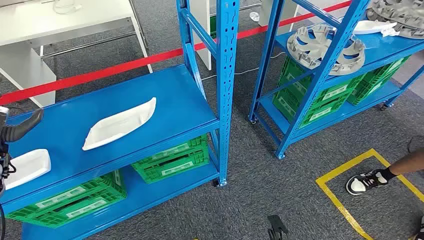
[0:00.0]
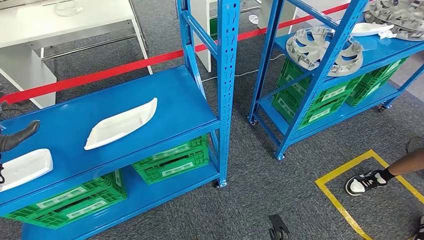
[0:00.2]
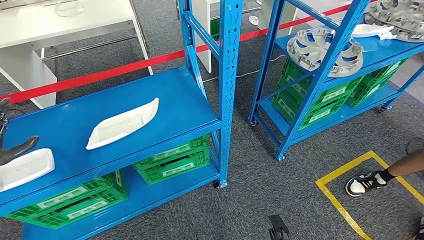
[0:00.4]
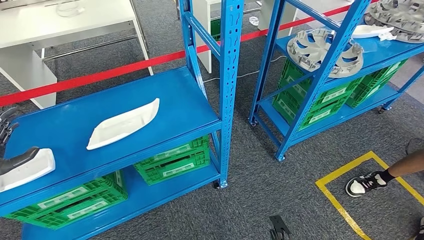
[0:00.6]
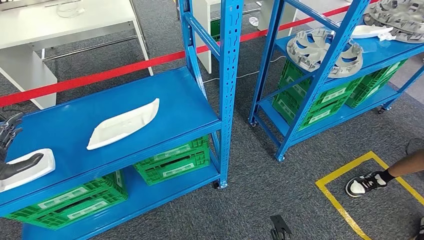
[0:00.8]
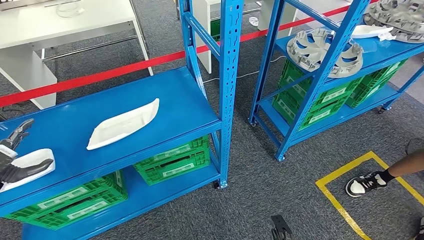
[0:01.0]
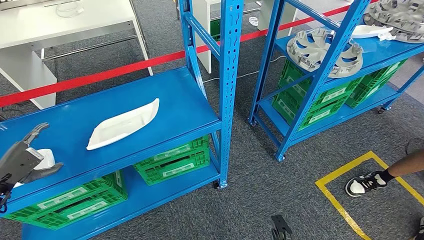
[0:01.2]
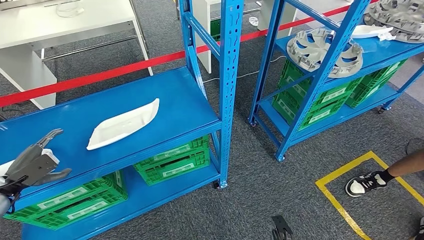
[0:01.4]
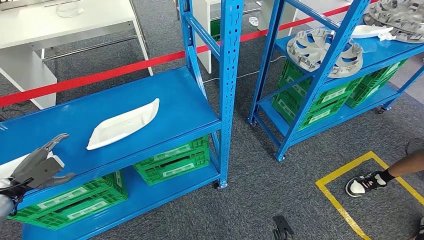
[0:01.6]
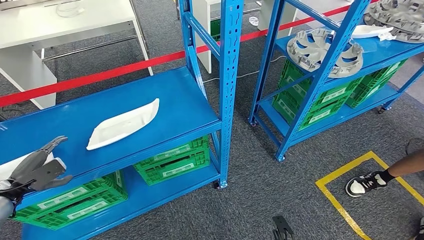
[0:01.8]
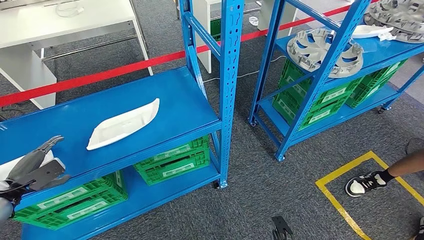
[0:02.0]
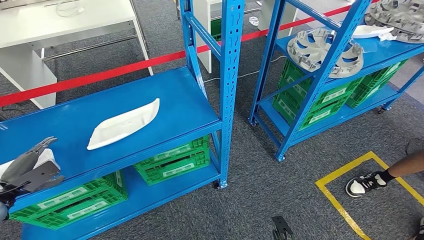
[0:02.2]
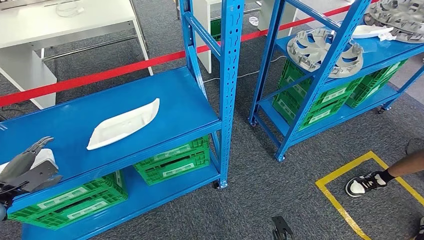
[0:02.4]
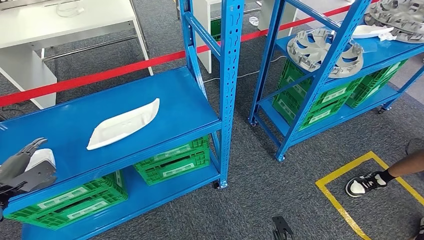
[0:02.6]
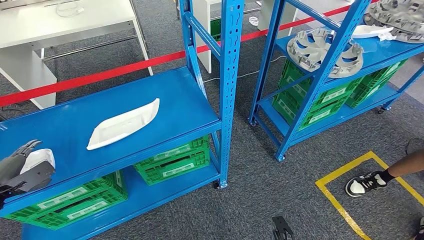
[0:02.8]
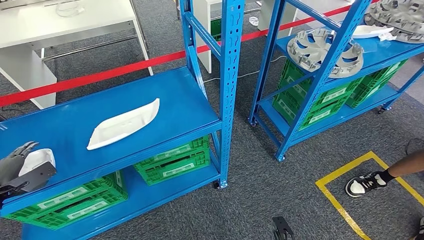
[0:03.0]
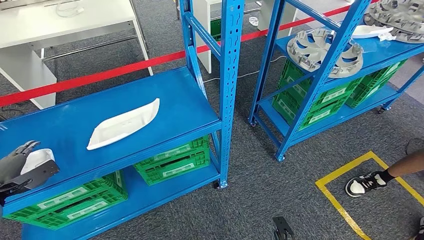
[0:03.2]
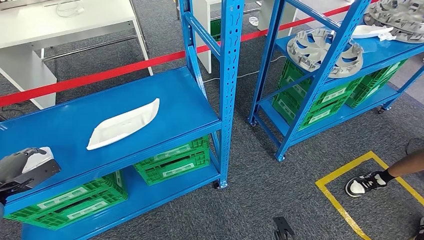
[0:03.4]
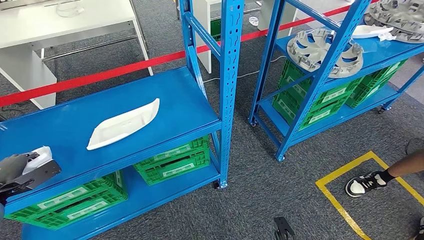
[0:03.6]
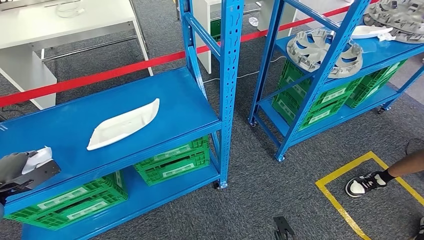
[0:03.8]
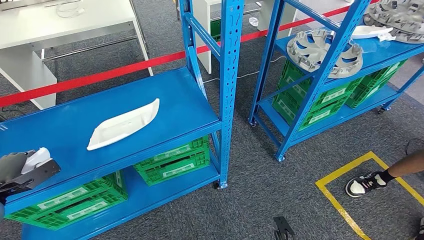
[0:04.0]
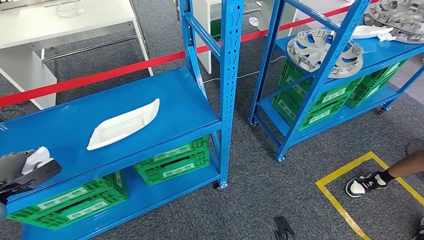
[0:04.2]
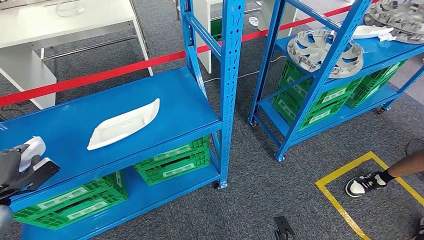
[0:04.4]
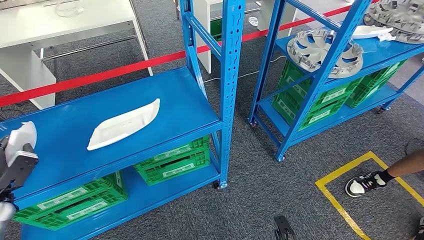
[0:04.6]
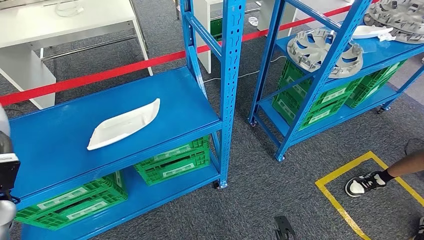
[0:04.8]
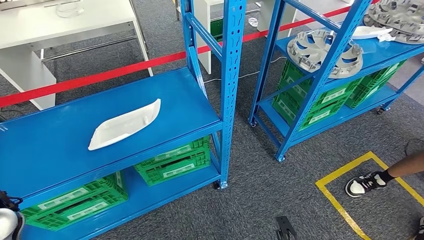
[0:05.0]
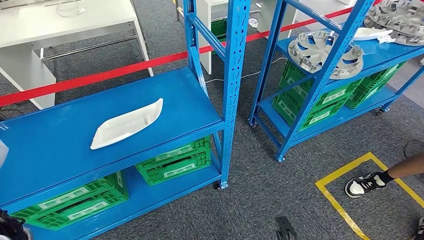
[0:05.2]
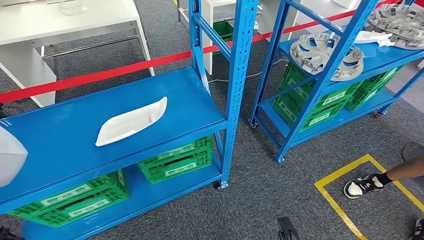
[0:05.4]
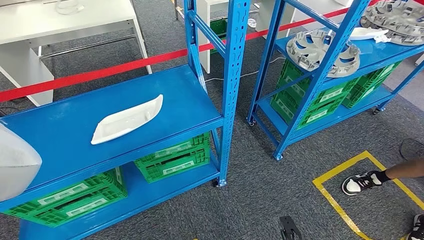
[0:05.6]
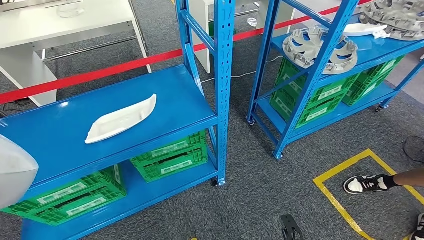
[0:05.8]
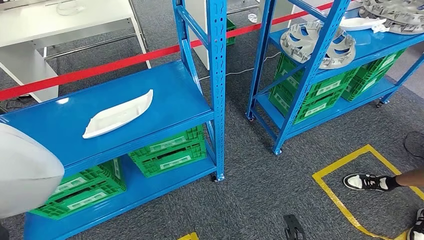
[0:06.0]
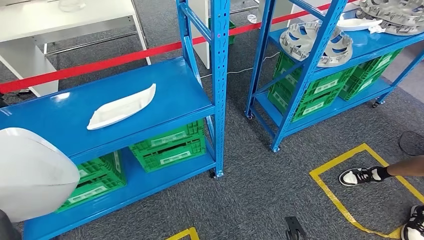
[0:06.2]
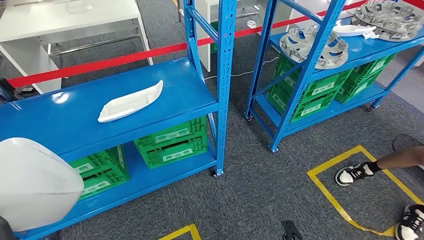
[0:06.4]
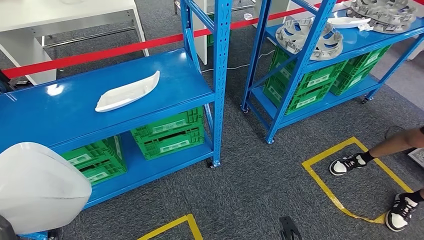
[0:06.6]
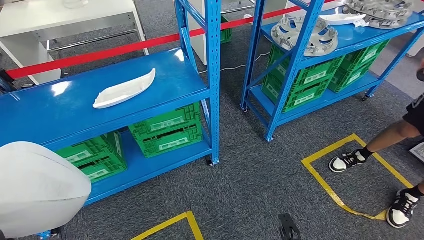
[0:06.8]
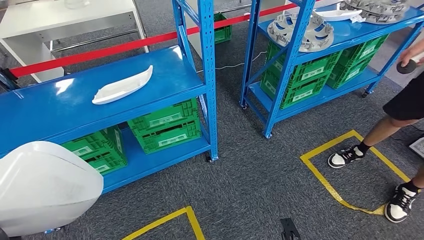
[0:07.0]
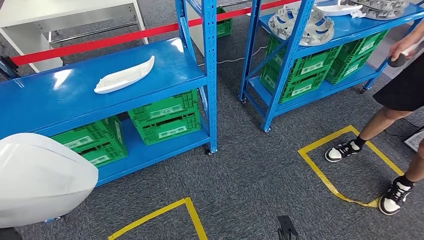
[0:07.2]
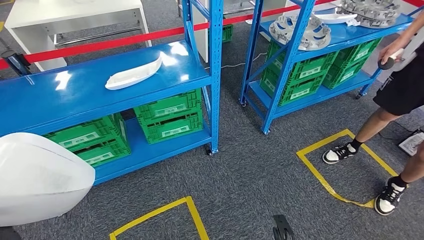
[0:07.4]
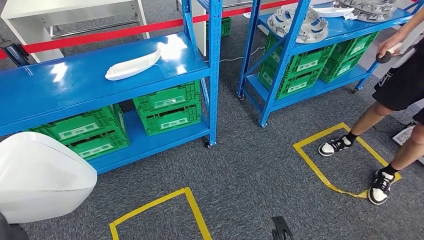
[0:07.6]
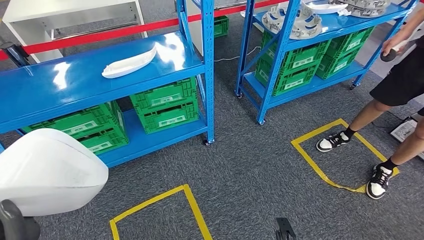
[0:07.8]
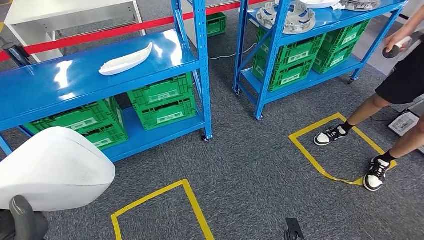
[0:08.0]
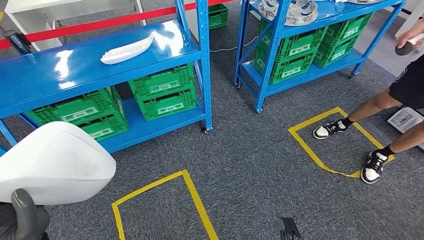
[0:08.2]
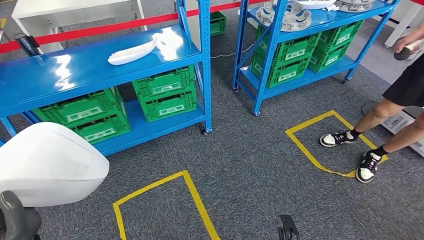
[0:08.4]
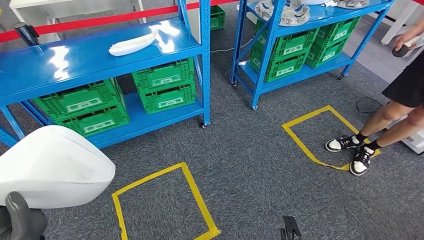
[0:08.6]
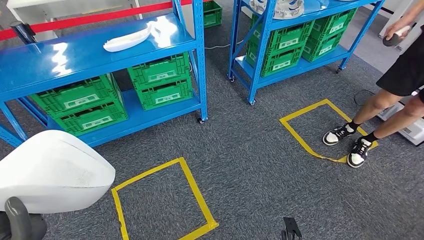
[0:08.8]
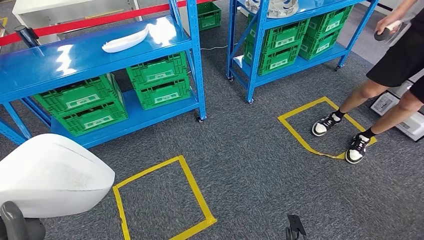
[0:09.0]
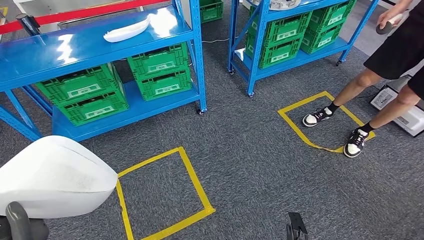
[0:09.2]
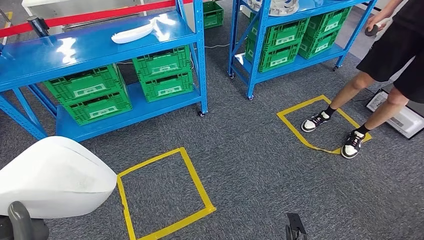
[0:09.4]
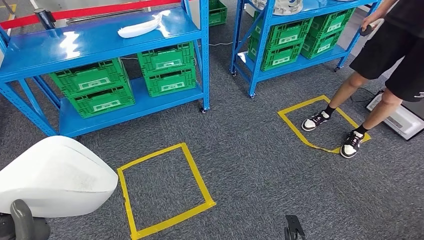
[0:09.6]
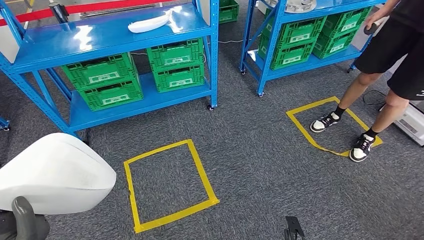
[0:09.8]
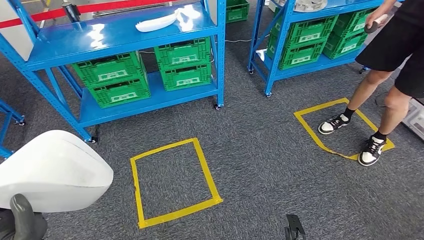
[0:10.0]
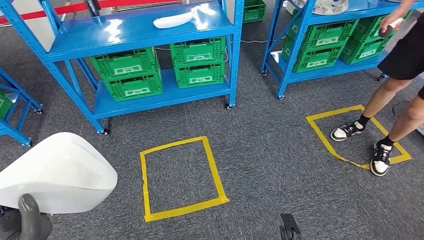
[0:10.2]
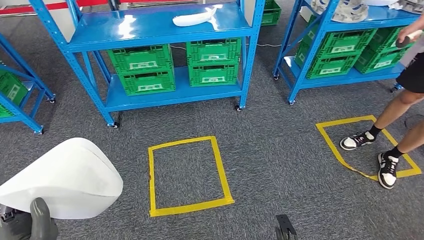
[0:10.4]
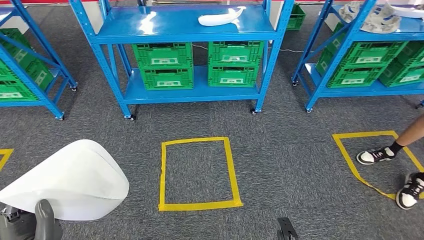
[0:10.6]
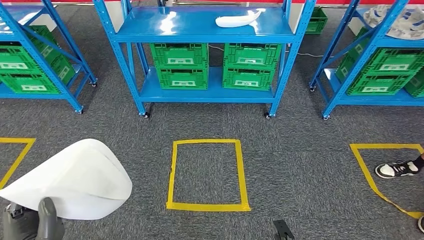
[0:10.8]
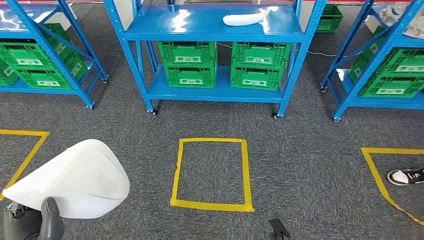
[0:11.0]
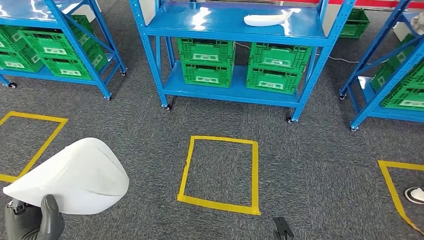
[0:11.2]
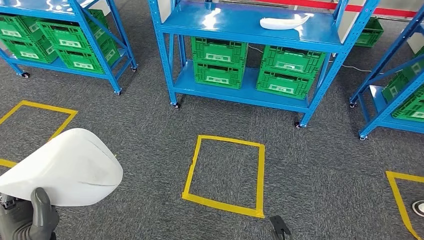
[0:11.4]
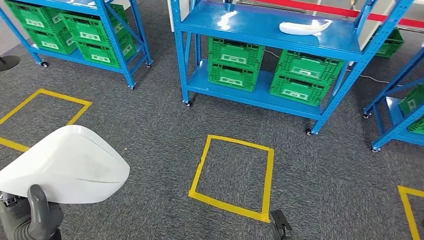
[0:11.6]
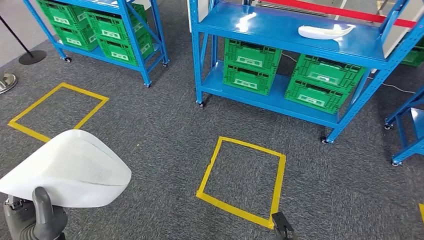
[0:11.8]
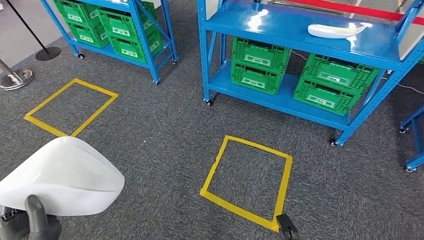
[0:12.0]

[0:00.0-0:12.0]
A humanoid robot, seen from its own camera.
Step, 0:00.0 to 0:08.8: Pick up the small component from the shelf.
0:03.0 to 0:04.4: The hands make only small movements.

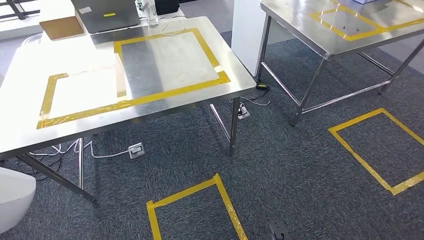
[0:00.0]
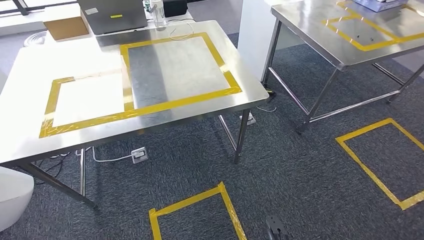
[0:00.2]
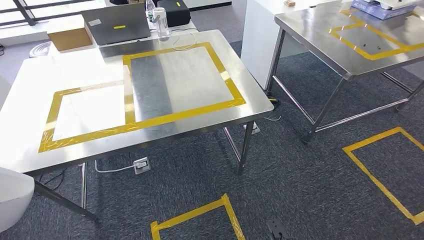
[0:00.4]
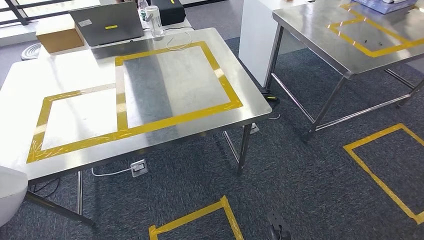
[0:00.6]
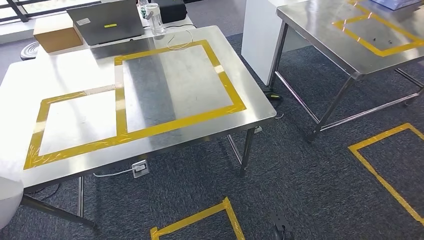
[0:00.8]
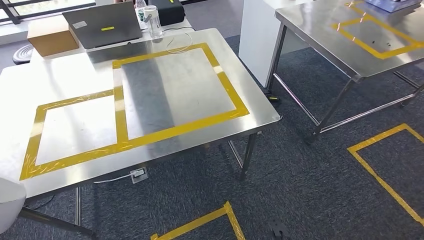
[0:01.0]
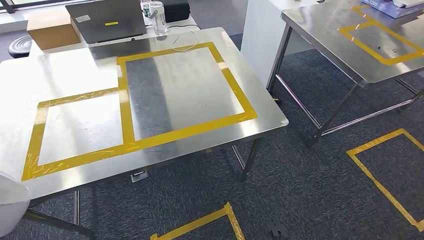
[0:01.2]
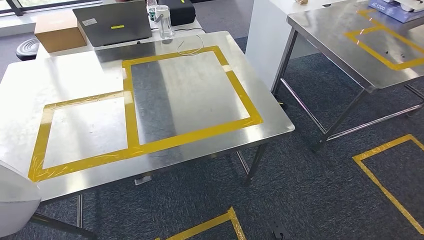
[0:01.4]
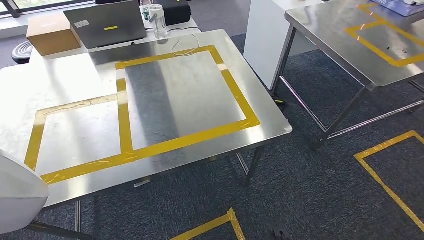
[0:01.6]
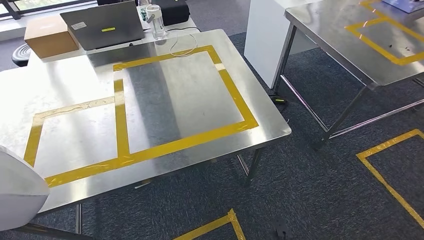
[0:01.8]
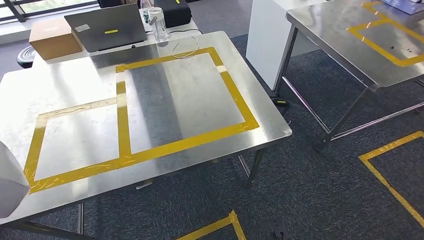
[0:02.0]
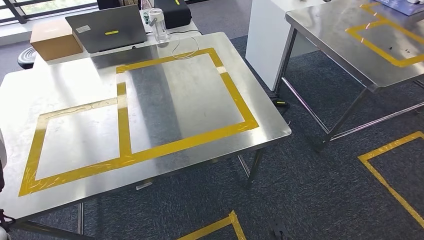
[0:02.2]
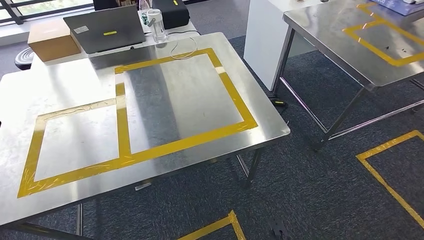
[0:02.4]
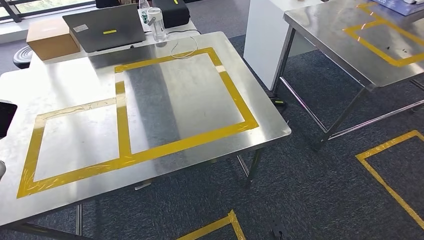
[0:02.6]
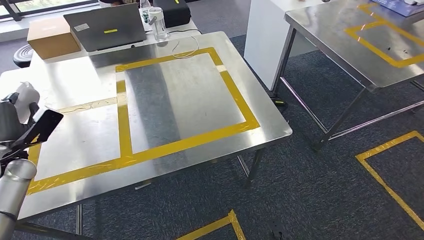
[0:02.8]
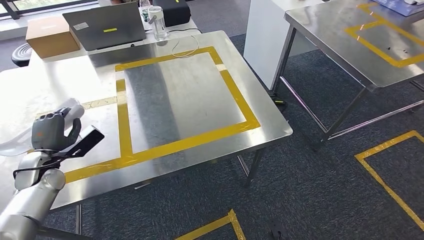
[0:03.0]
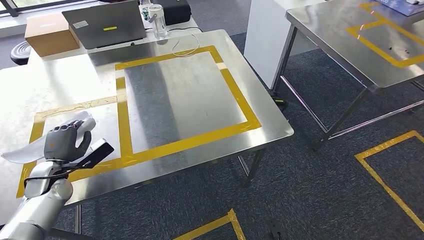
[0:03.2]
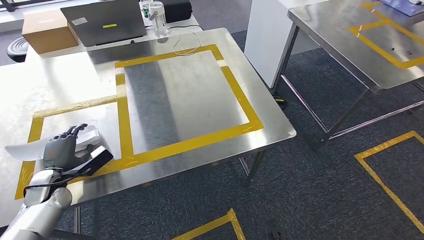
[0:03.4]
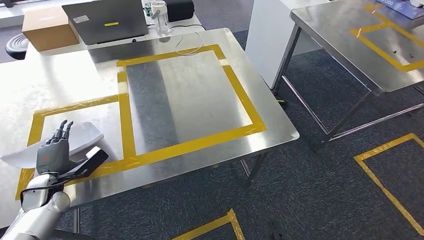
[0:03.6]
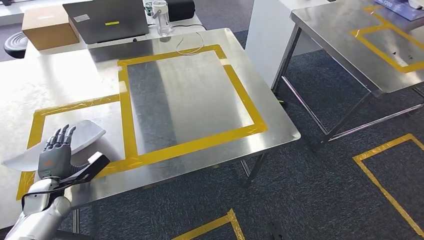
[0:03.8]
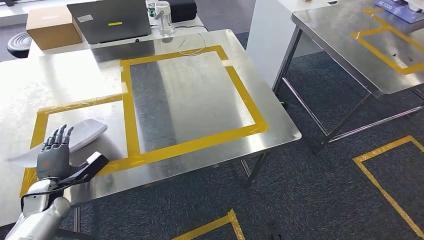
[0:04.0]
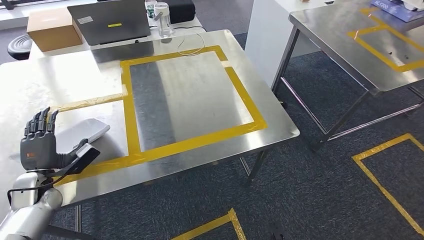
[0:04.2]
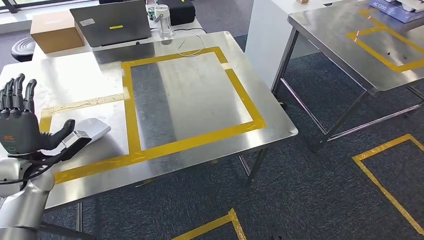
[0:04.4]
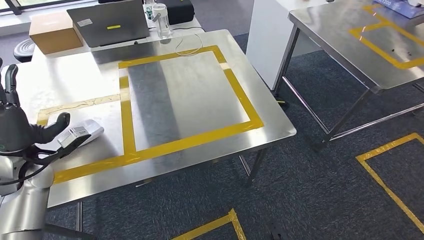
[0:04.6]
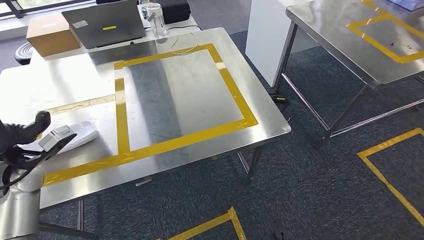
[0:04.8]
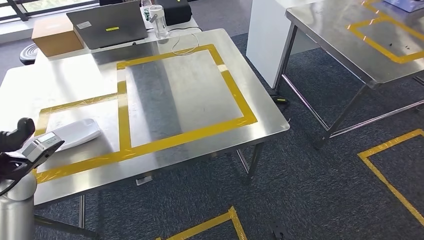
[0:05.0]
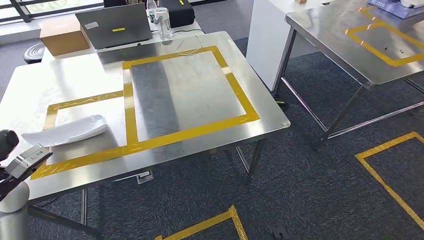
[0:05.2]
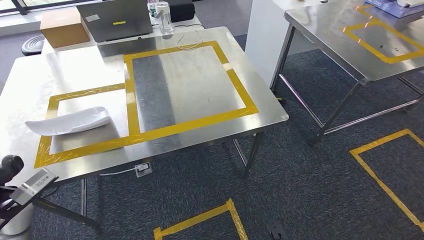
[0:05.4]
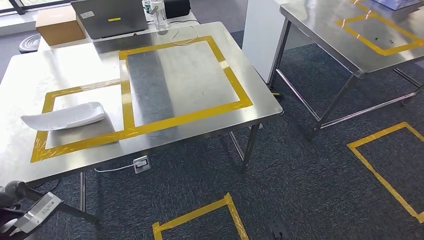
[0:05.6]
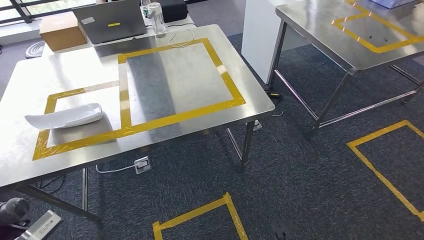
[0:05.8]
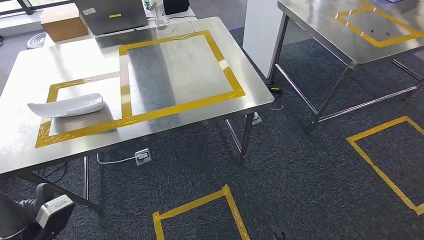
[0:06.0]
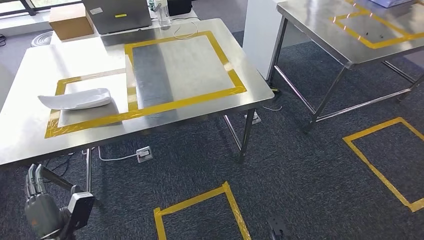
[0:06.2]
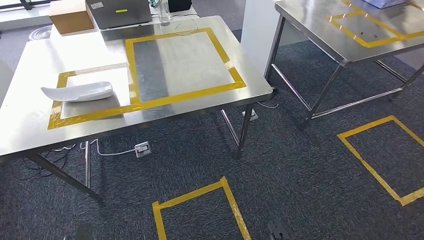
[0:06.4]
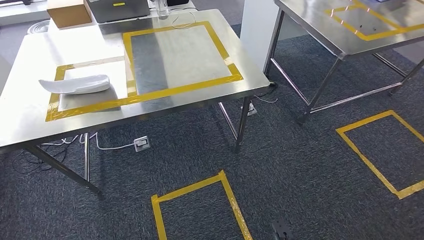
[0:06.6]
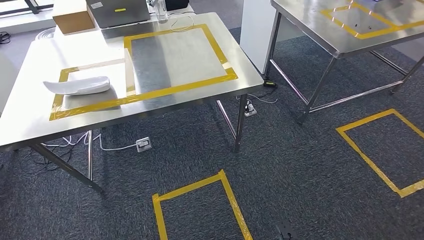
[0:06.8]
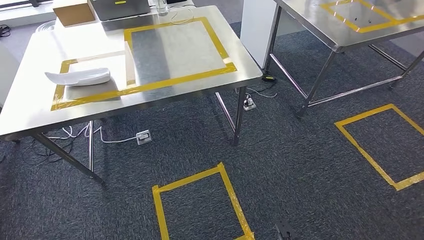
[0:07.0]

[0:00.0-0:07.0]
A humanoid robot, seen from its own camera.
Step, 0:02.0 to 0:05.4: Insert the small component into the corresponding slot on the workbench.
